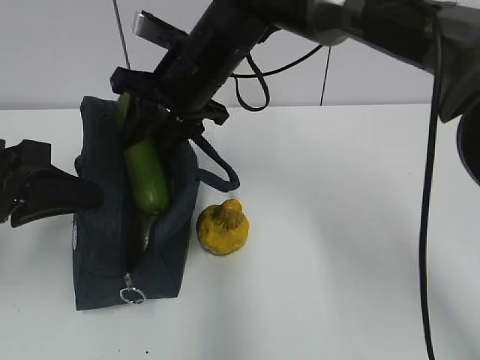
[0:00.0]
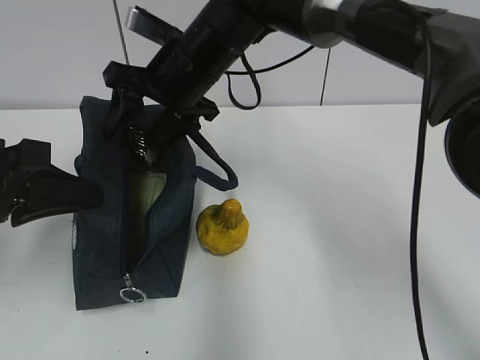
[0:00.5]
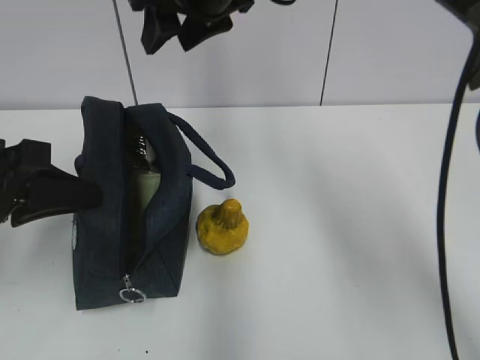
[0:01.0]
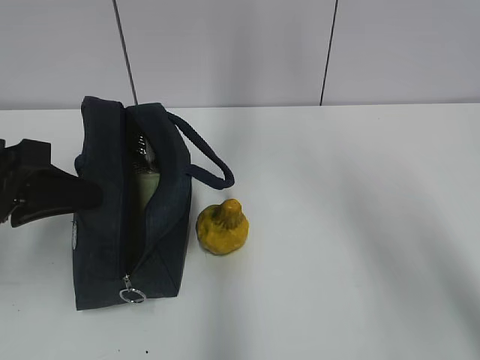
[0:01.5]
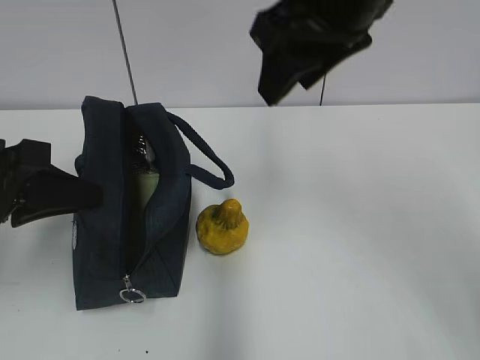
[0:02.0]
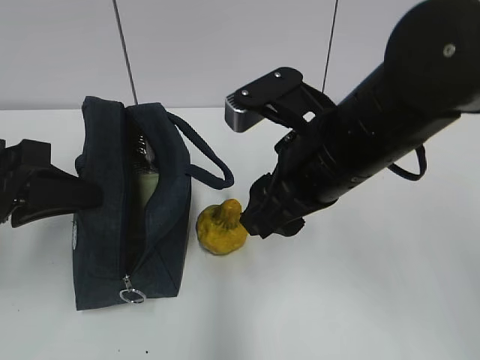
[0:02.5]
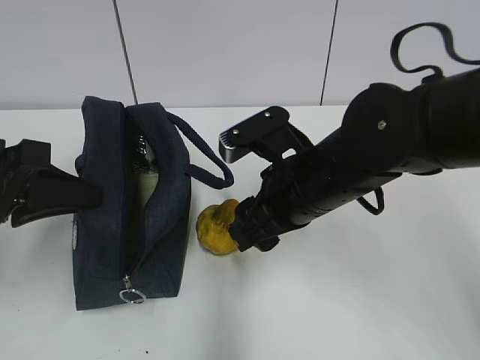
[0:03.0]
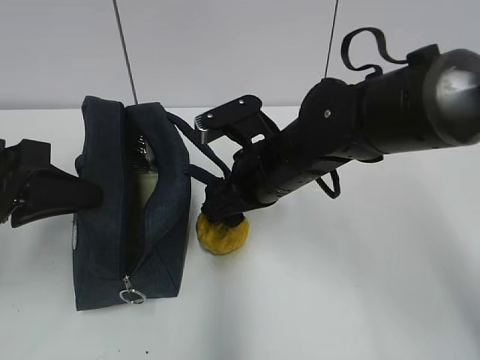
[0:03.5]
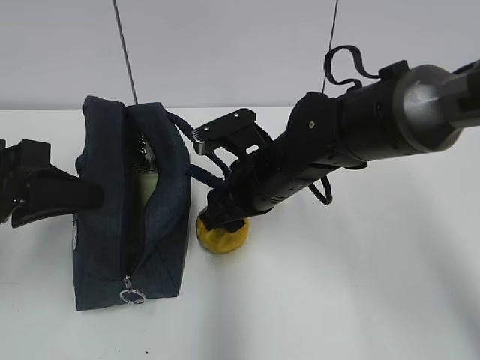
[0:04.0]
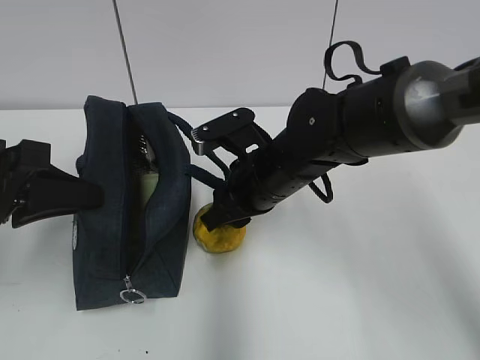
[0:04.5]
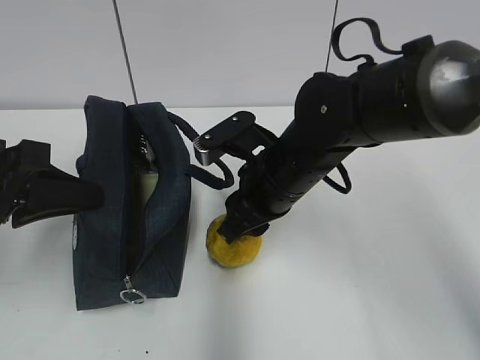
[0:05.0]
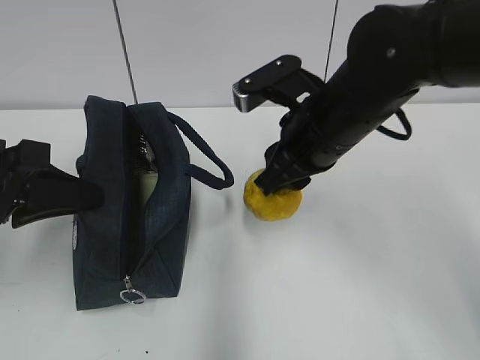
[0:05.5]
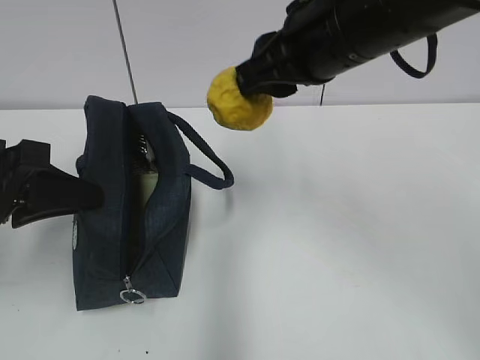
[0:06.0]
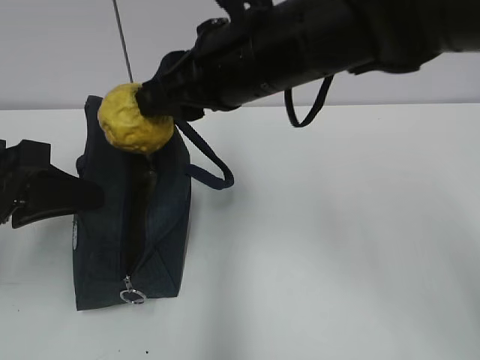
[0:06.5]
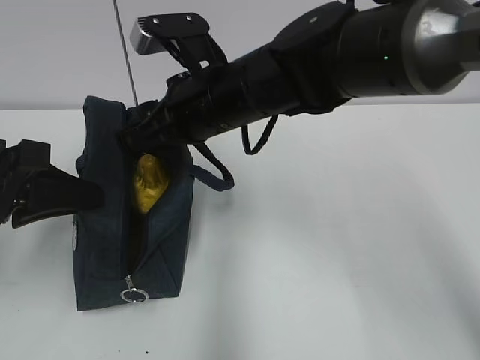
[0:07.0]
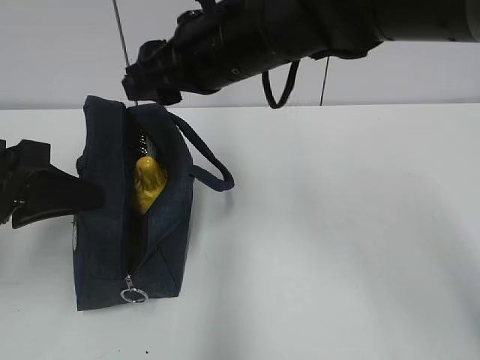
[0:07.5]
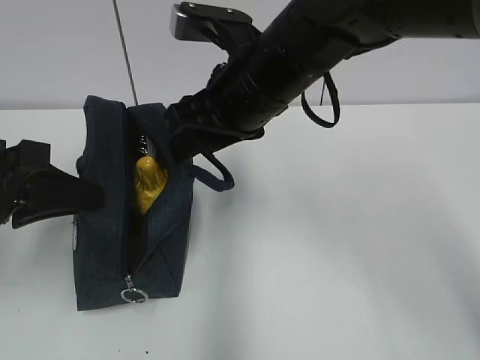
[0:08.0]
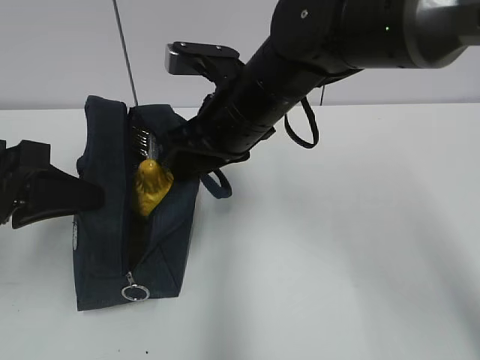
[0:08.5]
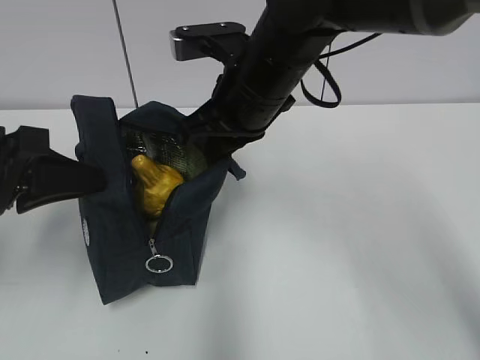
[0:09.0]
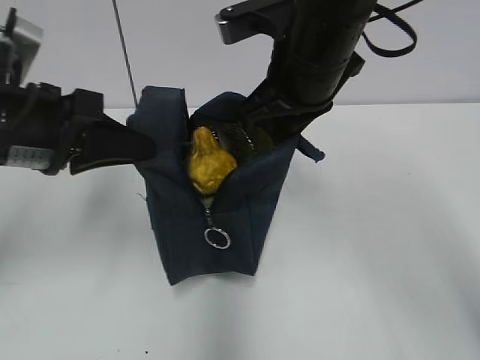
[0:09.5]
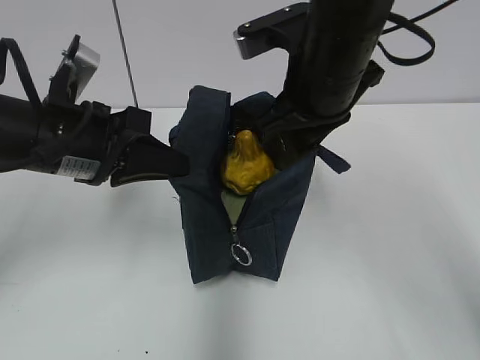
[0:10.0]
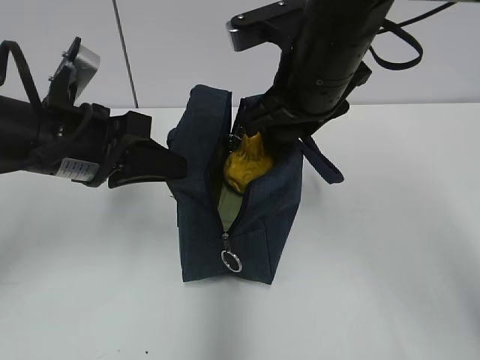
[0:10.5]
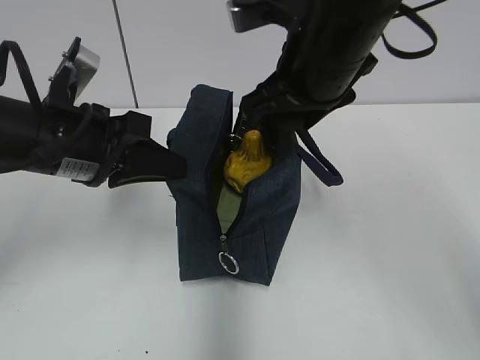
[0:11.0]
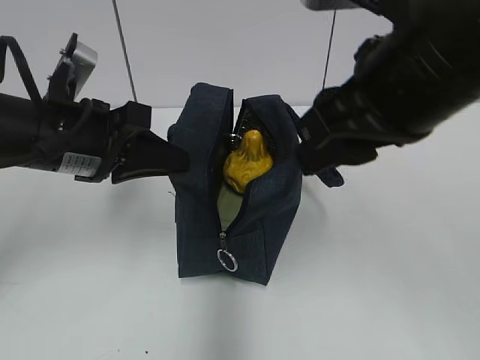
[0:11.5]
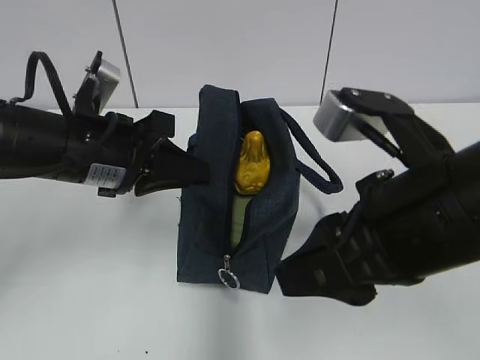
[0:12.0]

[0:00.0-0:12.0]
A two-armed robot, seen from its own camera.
Step, 0:01.0 to 0:04.5: Grab the pear with your right hand.
Step, 0:07.0 to 0:08.5: Grab the lunch bag with your right hand.
Step, 0:09.0 to 0:10.5: Move the lunch bag to the right.
0:00.0 to 0:02.0: The right gripper heads upward, to the right and backward, covering about 20 cm.
0:02.0 to 0:04.0: The right gripper travels downward by some 20 cm.
0:04.0 to 0:06.0: The right gripper is displaced upward by approximately 15 cm, and closes up.
0:06.0 to 0:08.0: The right gripper travels to the left by approximately 5 cm.
0:08.0 to 0:10.0: The left gripper is displaced to the right and forward by approximately 10 cm. The right gripper is displaced to the right by some 5 cm, and closes up.
0:10.0 to 0:12.0: The right gripper is displaced backward by about 15 cm, and opens.

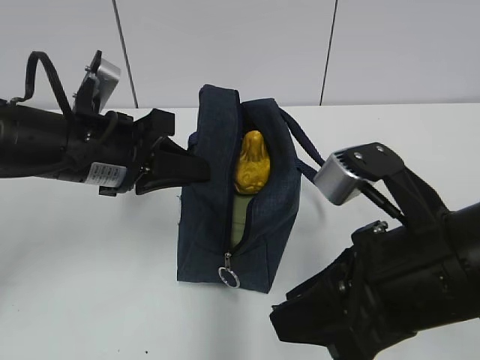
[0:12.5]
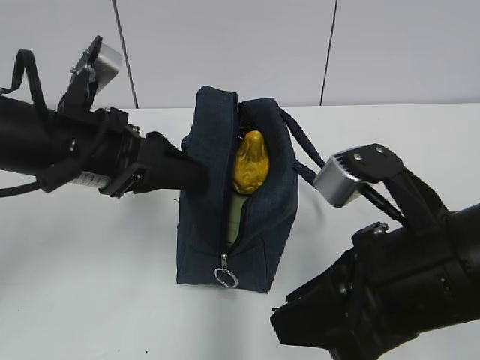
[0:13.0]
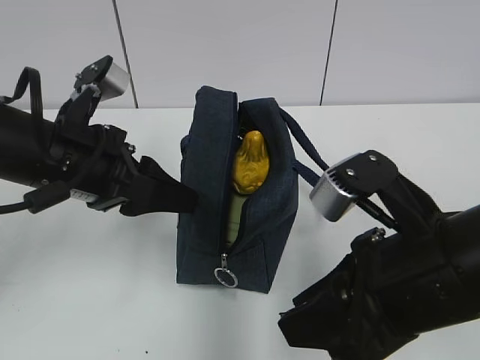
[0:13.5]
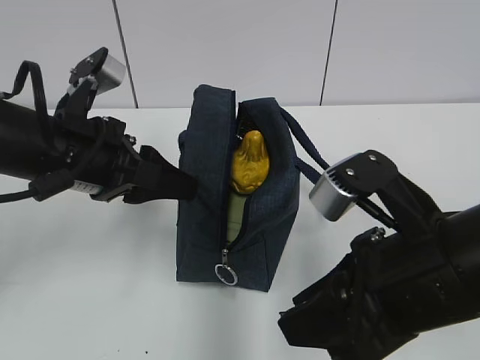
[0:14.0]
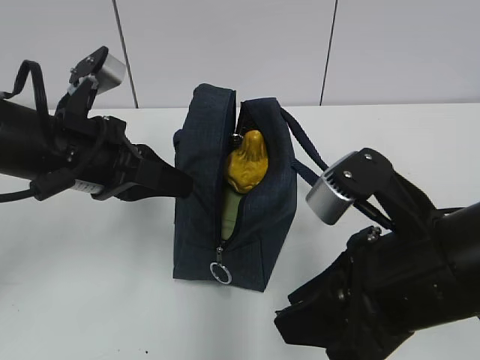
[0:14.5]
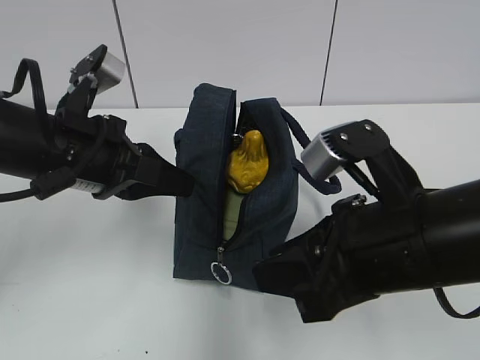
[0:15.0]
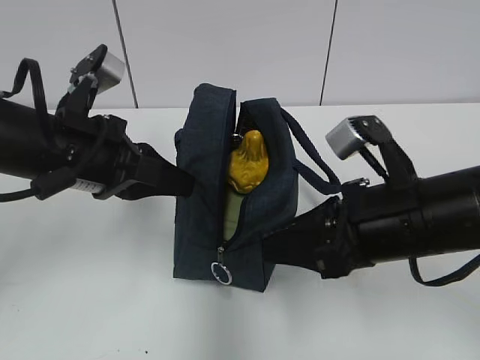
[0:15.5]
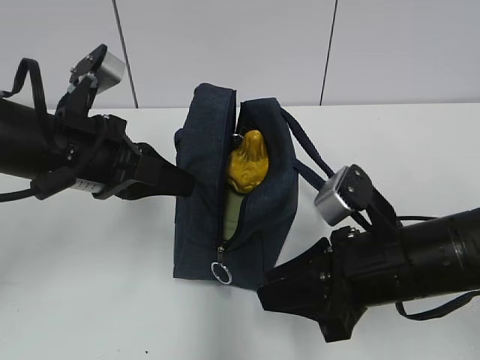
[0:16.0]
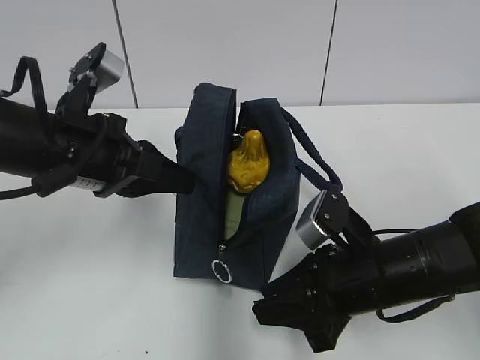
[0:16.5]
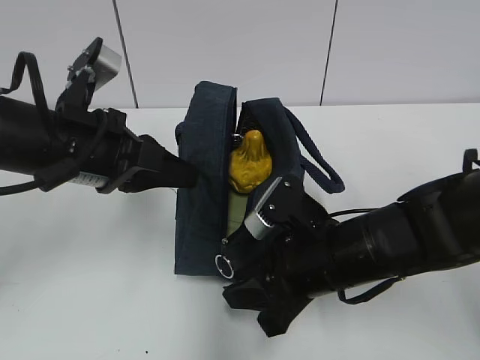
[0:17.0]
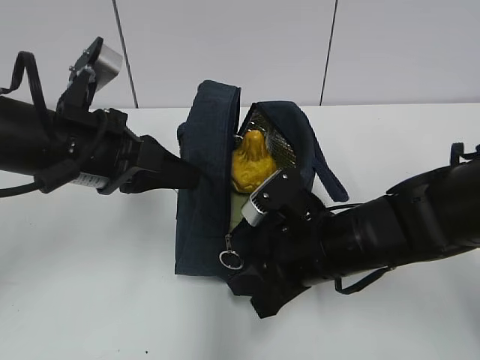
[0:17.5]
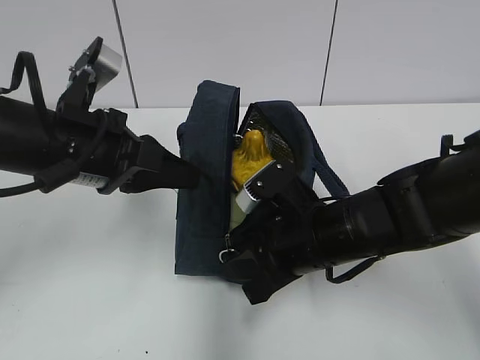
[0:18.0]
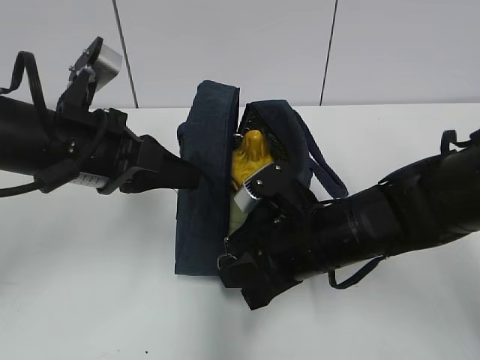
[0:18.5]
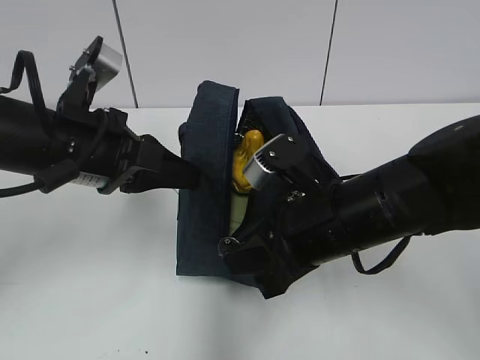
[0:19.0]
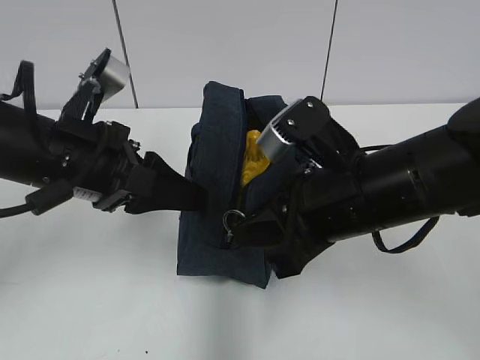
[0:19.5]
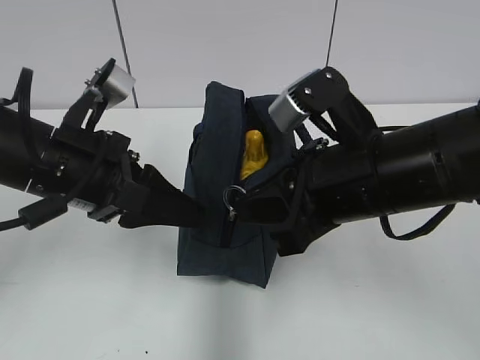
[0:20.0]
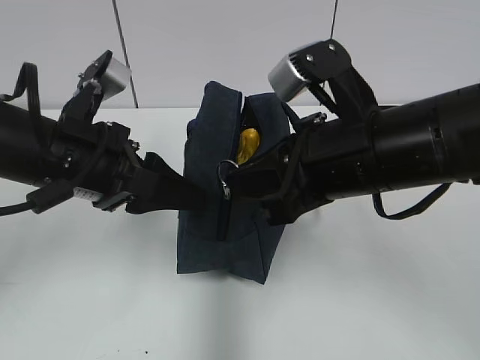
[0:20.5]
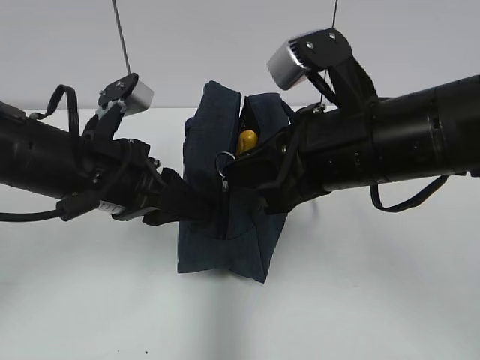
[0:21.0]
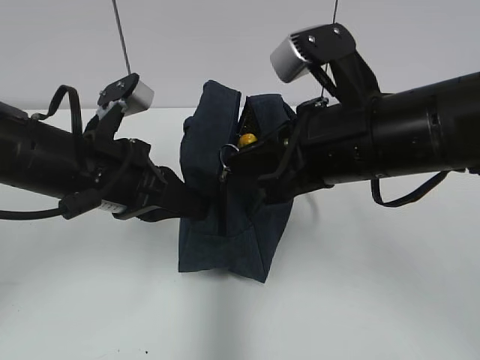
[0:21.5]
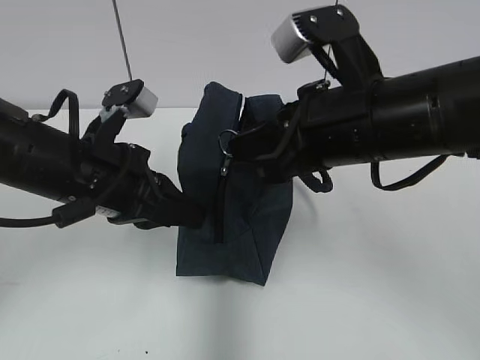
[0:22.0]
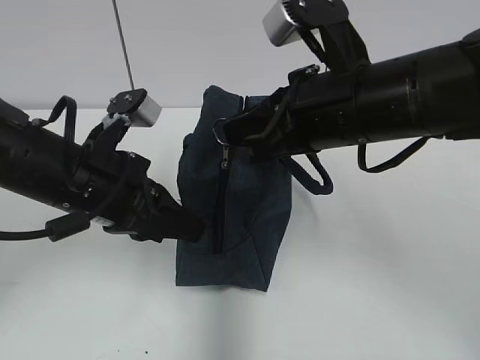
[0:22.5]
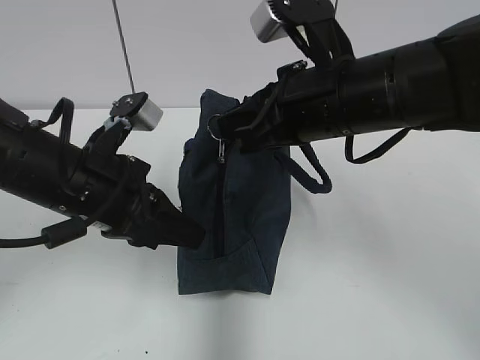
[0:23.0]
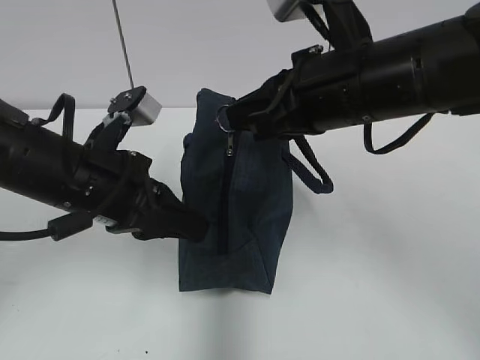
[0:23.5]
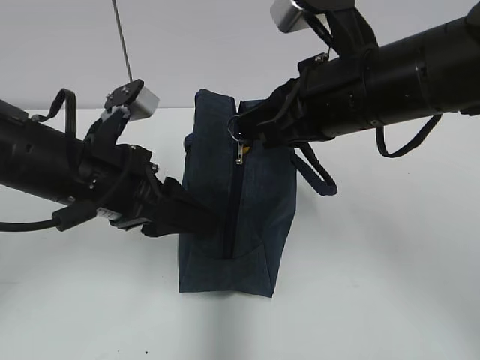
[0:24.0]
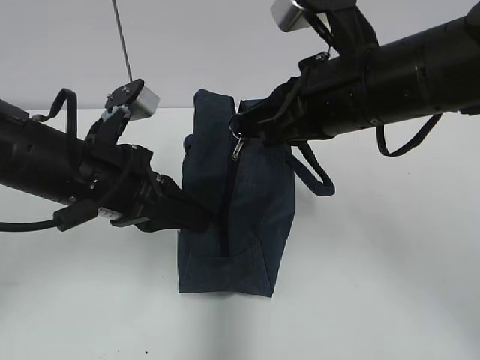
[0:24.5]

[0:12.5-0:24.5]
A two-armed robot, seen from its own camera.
Step, 0:12.5 to 0:14.5: Grab the lunch bag with your left hand.
0:12.5 to 0:14.5: The left gripper opens, then closes again.
0:14.5 to 0:16.5: The right gripper moves downward and forward, about 15 cm.
0:16.5 to 0:18.5: The right gripper ends up about 5 cm from where it was, and closes.
0:18.5 to 0:20.5: The right gripper heads upward, covering some 10 cm, while the left gripper opens up.
0:20.5 to 0:22.5: The left gripper closes its fingers.
0:22.5 to 0:24.5: The left gripper opens and closes again.

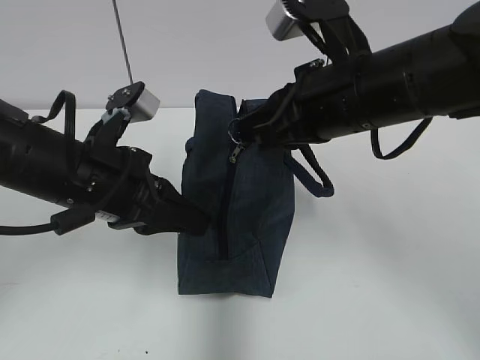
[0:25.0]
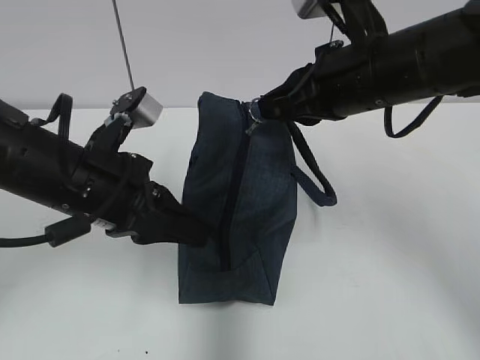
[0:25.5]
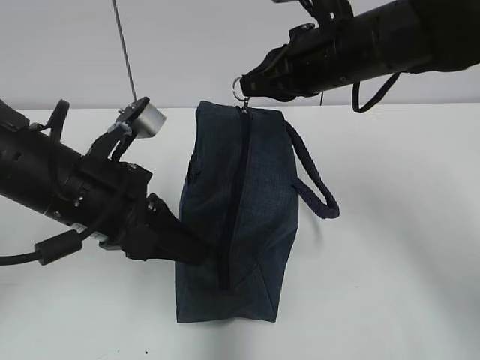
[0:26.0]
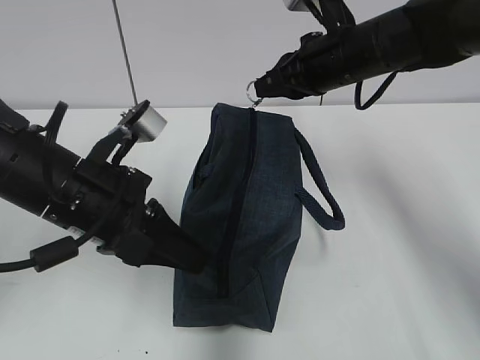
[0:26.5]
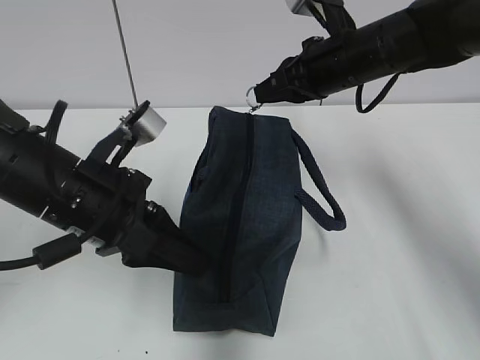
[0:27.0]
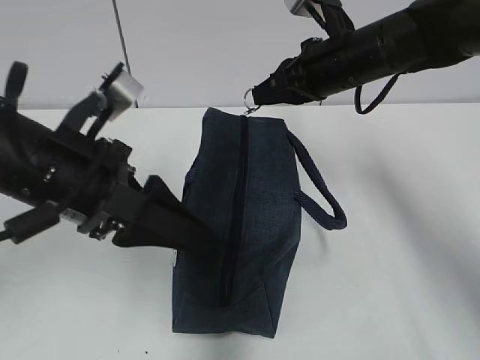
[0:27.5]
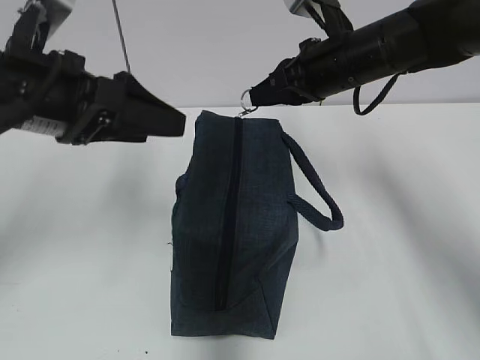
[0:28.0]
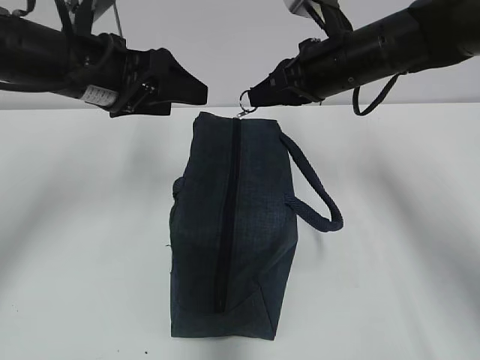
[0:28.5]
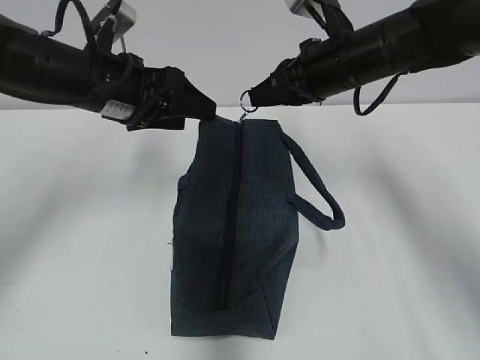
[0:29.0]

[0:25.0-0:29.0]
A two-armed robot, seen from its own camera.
0:25.0 to 0:27.0: The right gripper heads forward, covering approximately 15 cm.
0:27.0 to 0:29.0: The left gripper goes about 10 cm forward, and opens up.
